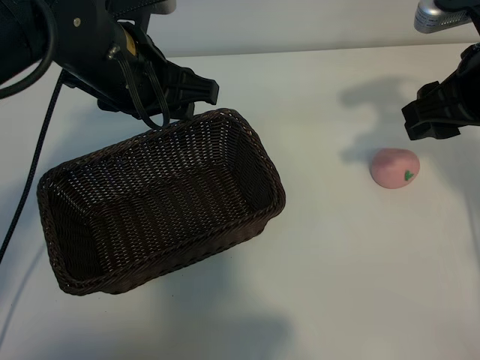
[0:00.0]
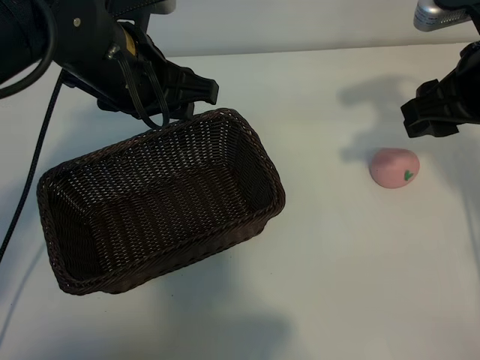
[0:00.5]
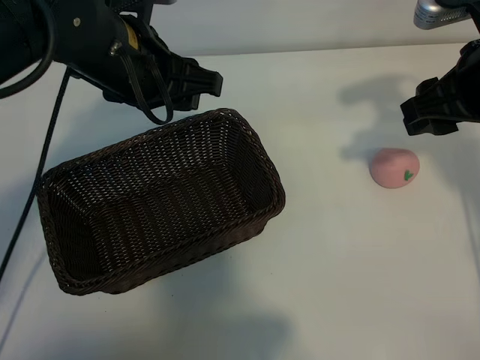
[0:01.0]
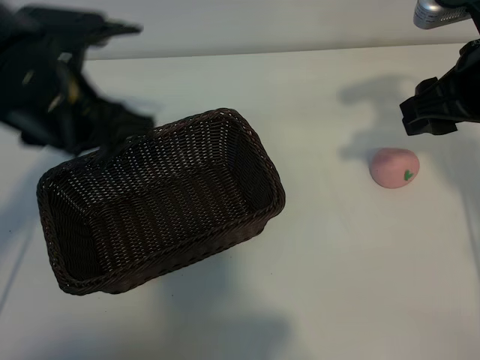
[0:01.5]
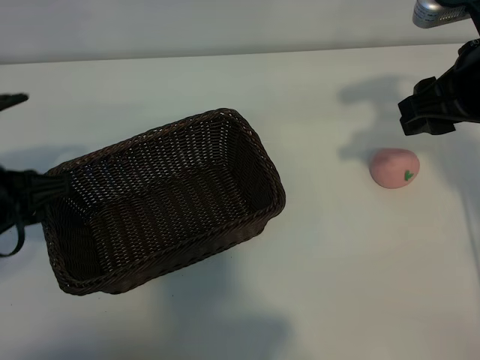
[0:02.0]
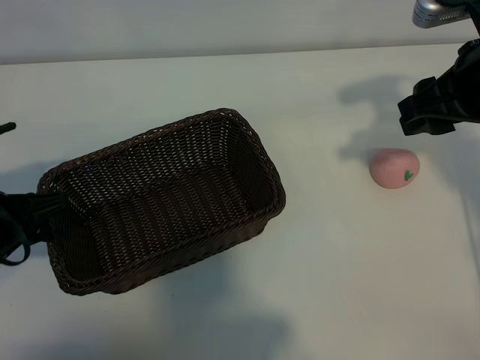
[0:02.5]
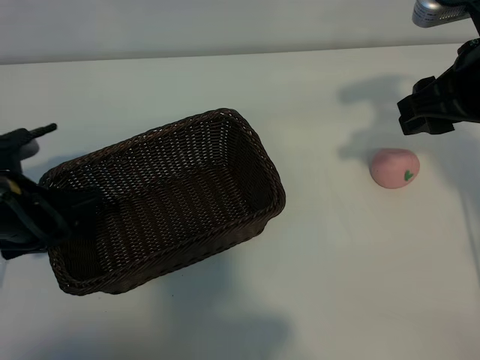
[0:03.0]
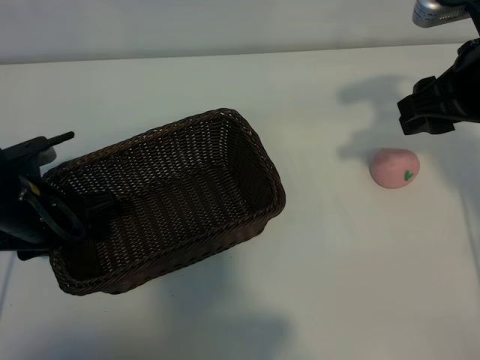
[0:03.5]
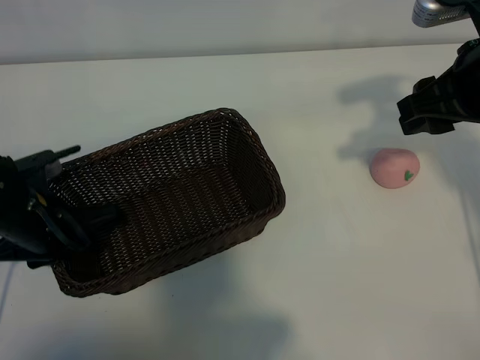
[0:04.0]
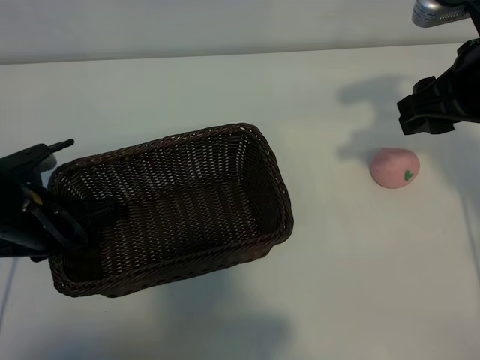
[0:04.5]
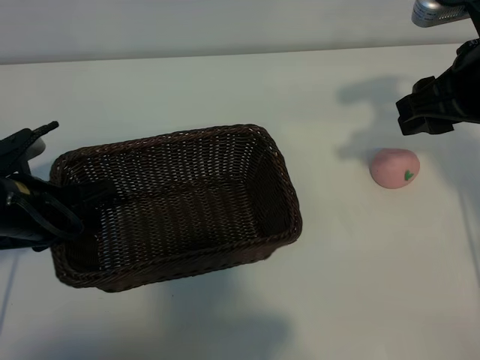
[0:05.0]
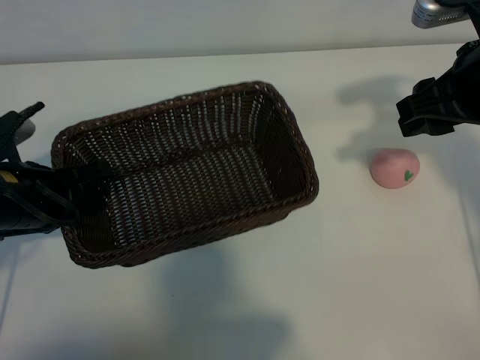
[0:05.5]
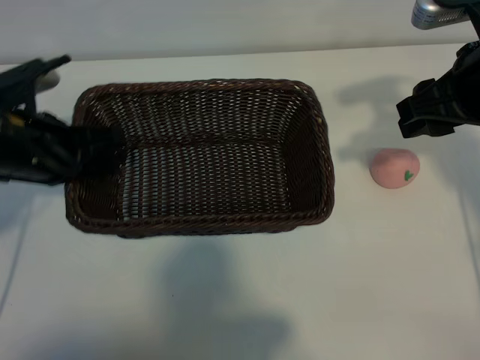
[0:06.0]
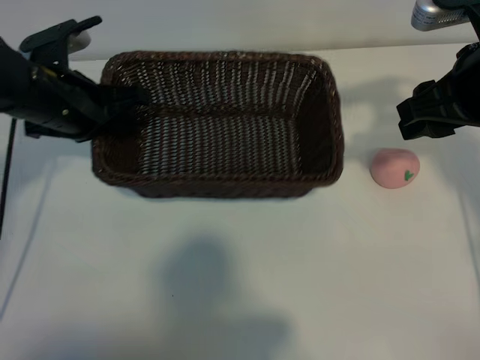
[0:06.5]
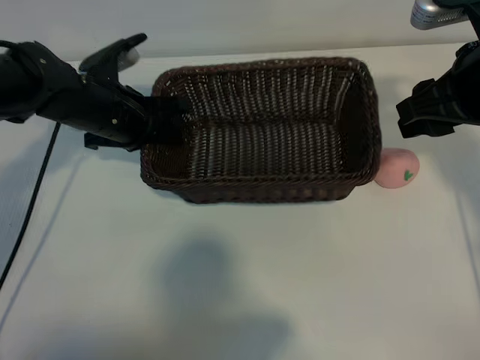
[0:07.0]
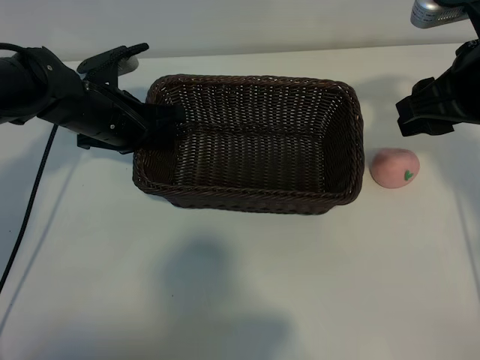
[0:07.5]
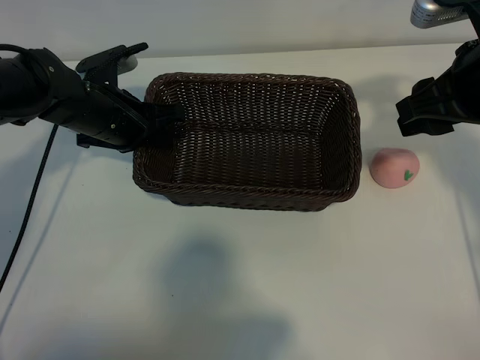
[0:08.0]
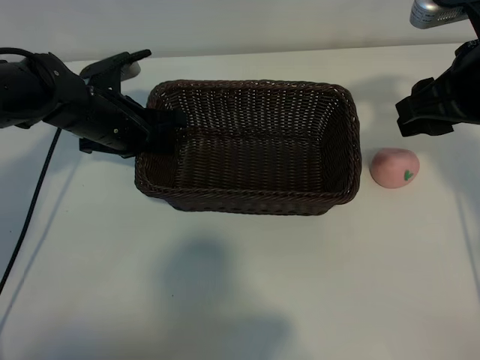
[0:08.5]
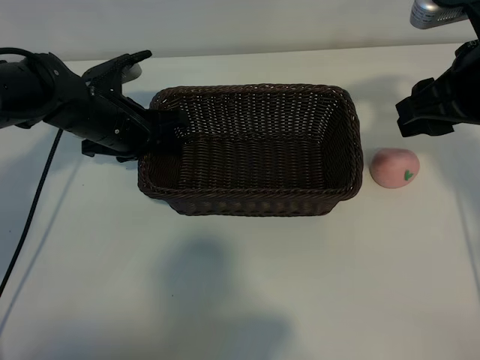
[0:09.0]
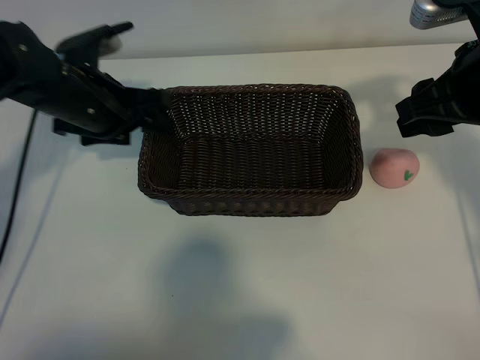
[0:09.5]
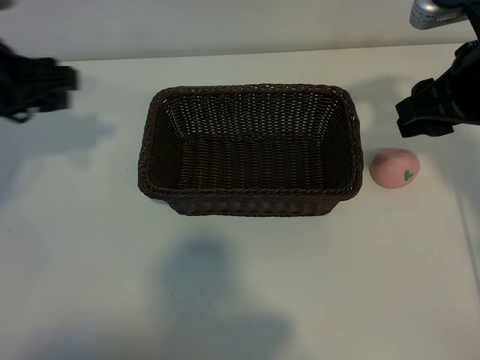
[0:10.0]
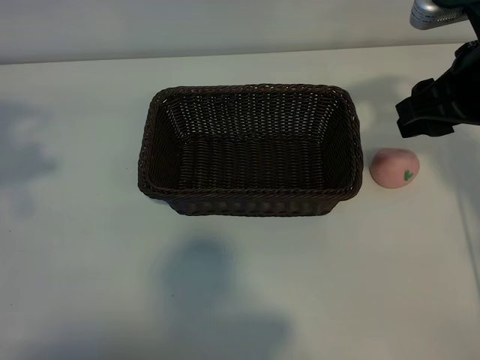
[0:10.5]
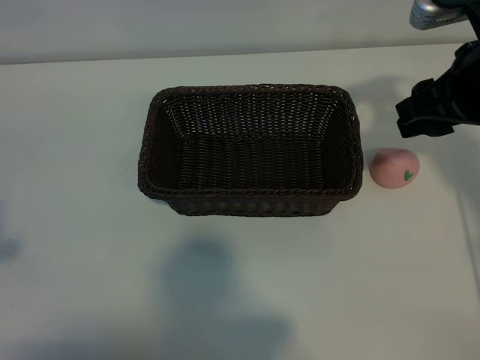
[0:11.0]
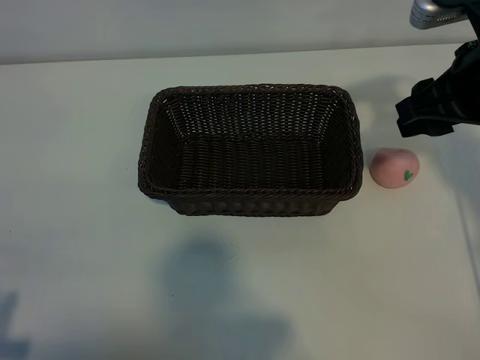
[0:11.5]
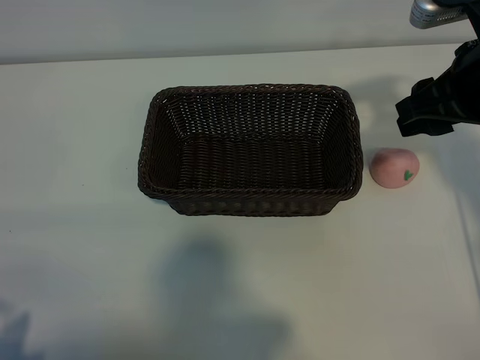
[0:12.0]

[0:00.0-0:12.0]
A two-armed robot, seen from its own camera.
Task of the whole recording: pick up the peach and put it into the basket.
Step, 0:01.0 to 0:04.0: Grasp the basket with left gripper.
Step, 0:04.5 to 0:09.5: Place the basket in the center of view with left gripper.

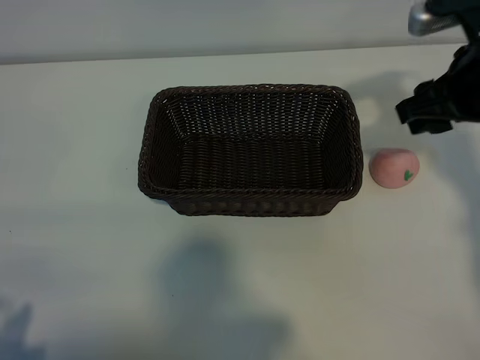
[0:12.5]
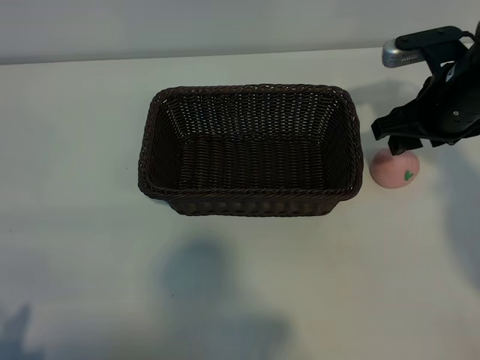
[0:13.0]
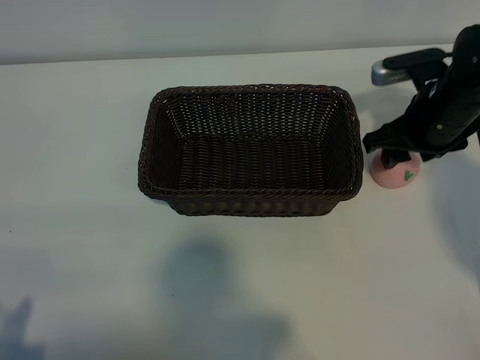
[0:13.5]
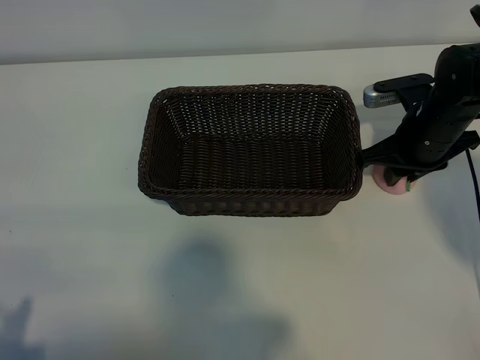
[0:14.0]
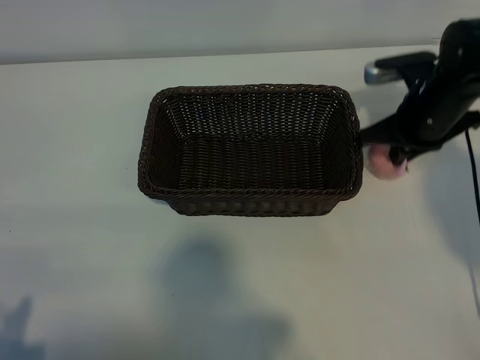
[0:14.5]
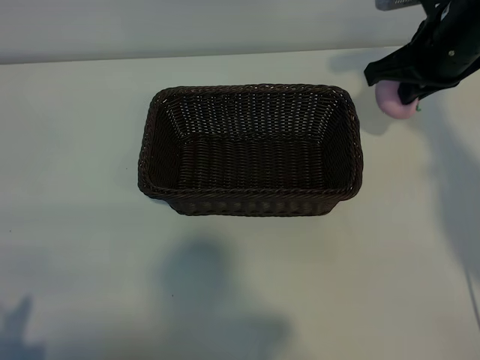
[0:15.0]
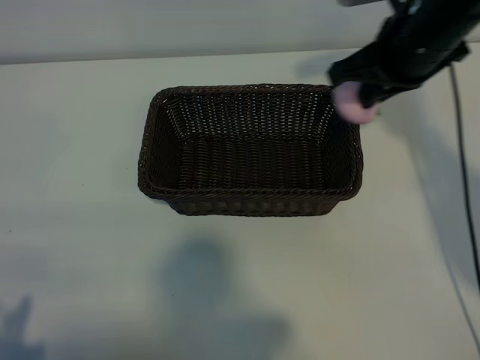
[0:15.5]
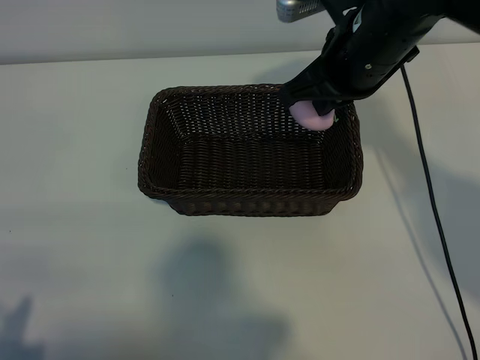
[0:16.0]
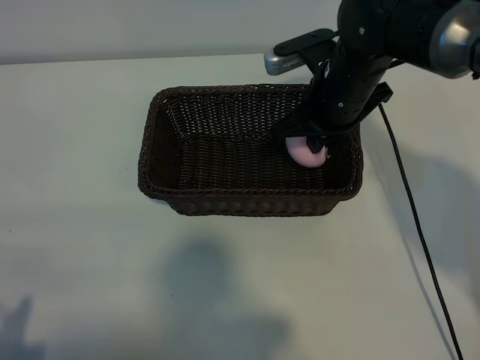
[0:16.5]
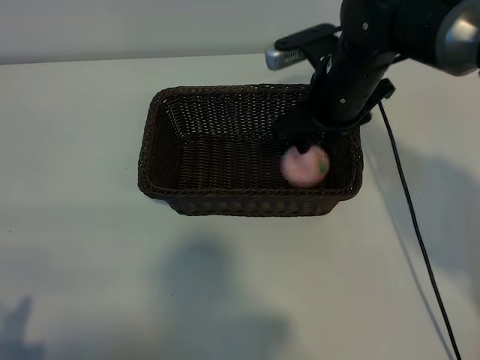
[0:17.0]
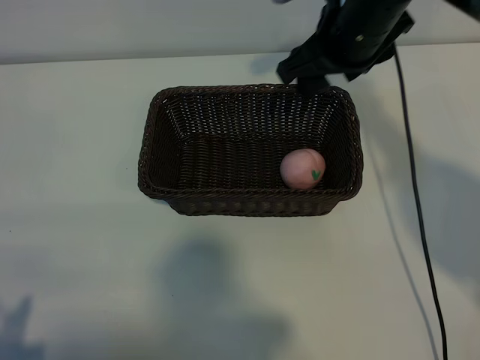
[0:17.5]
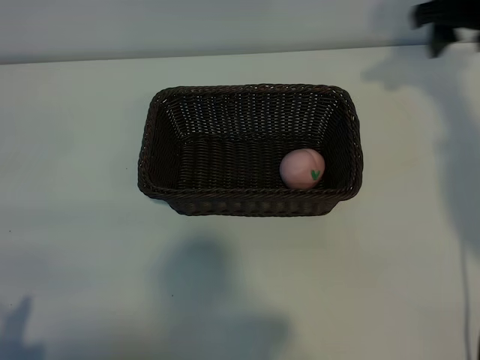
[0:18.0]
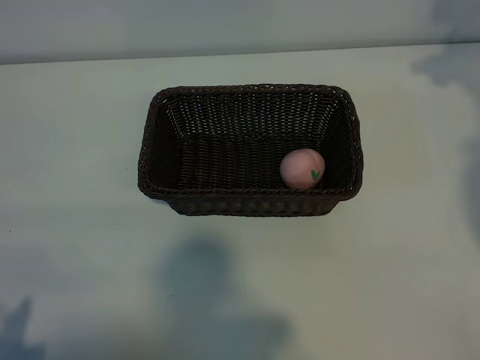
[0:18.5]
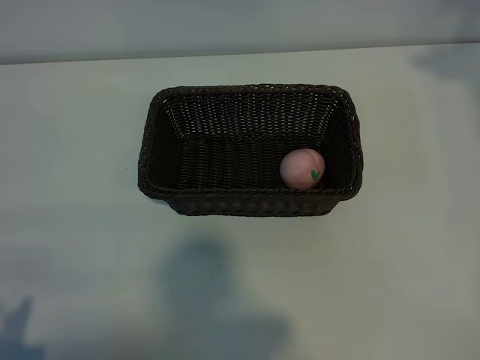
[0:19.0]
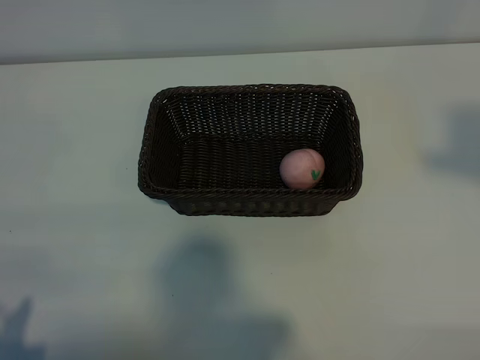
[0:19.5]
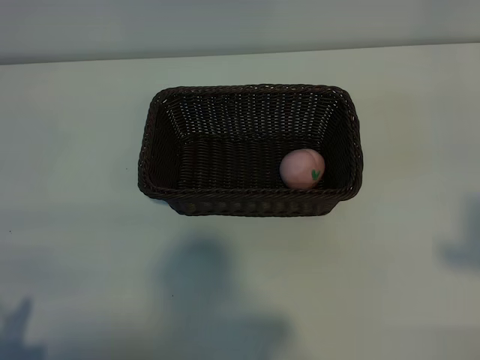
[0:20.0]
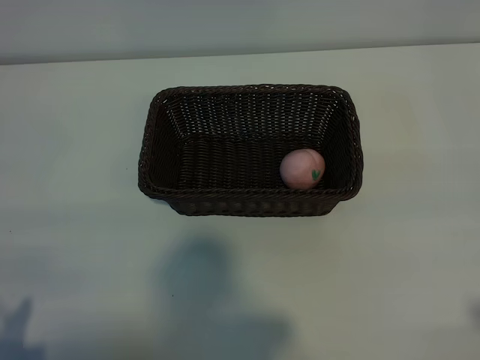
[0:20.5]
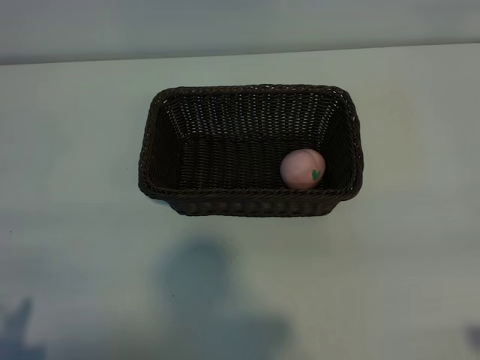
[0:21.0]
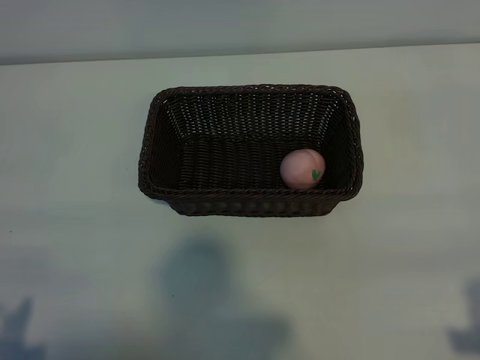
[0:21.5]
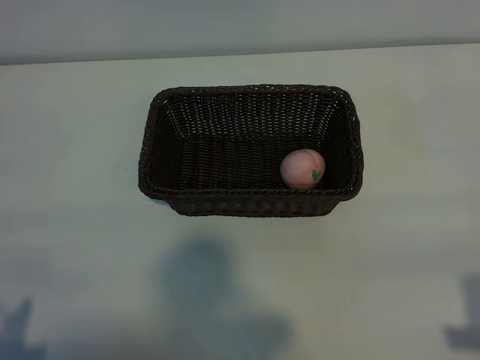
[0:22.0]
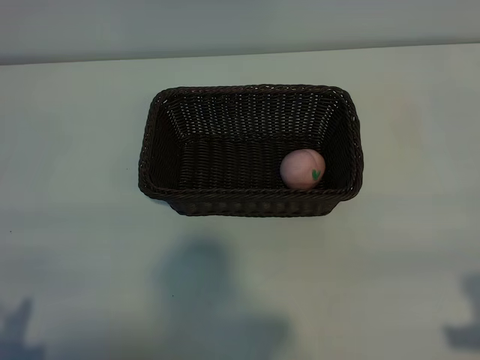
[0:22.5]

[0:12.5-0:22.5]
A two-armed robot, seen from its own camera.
Task of the whole recording: pick up the peach and put it into the basket.
Step, 0:14.5 to 0:17.0: Place the peach in the basket with right gripper.

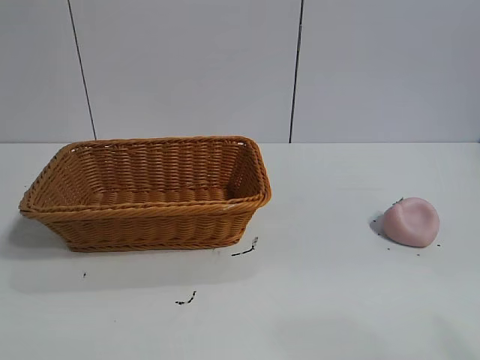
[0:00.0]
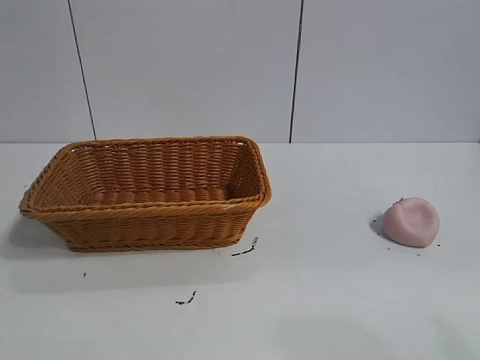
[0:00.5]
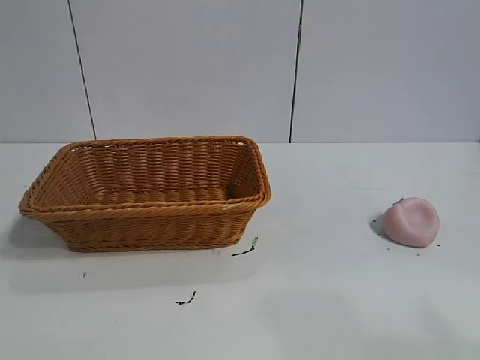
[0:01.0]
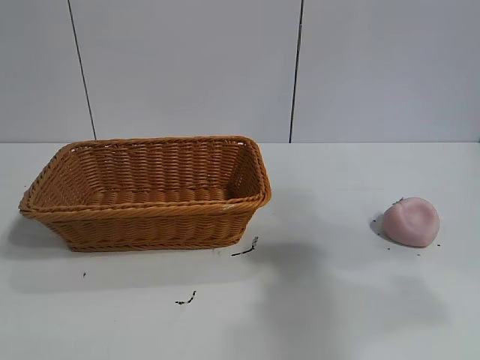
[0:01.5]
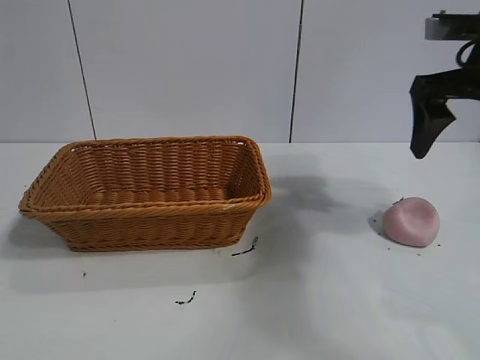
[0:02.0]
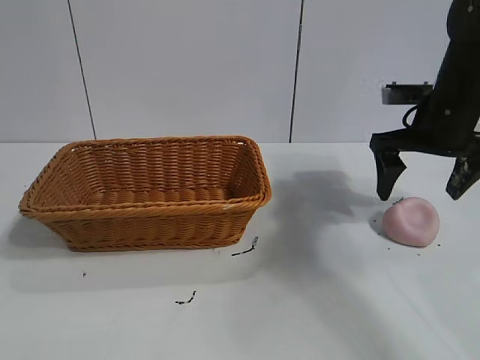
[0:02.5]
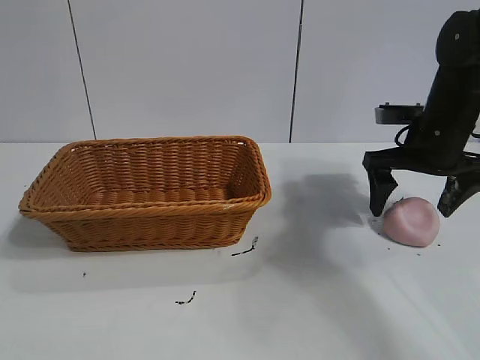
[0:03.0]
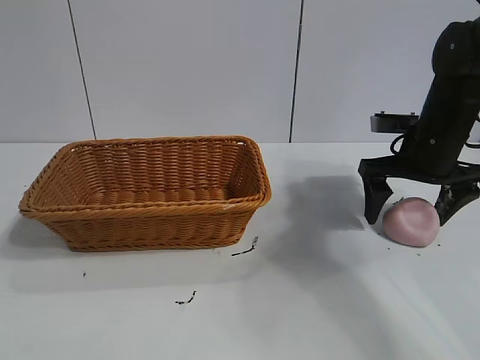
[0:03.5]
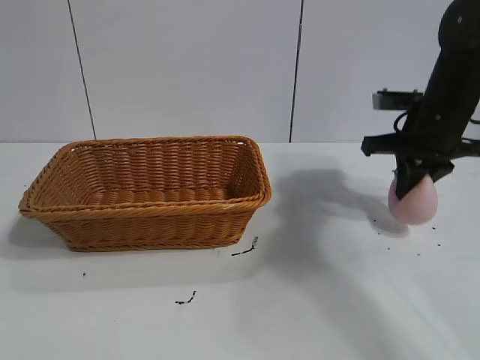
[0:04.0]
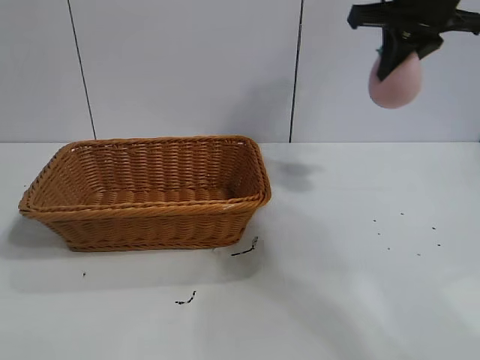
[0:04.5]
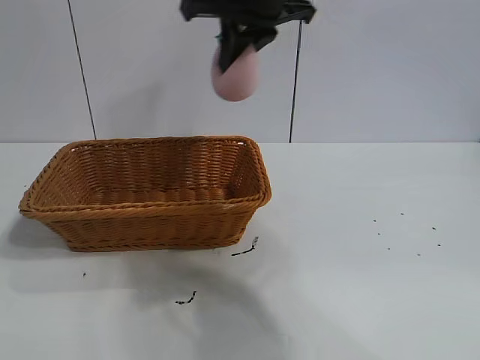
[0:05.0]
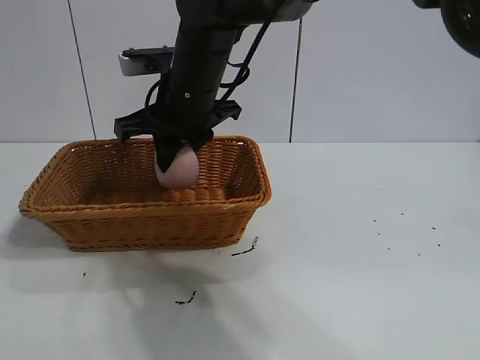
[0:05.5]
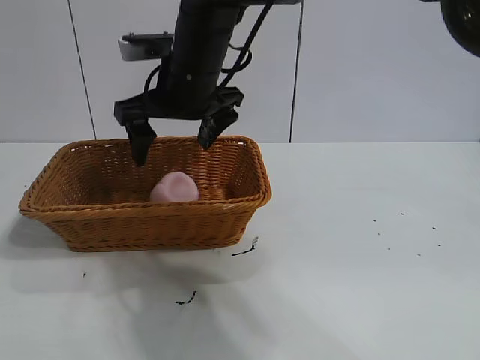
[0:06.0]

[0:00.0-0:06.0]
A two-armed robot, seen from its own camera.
Task of the whole recording: pick up the peach and put it into the basket.
Step, 0:01.0 to 0:03.5: Grasp the peach with right gripper.
Step, 0:04.0 to 0:05.5: Place the peach in the basket with right gripper.
